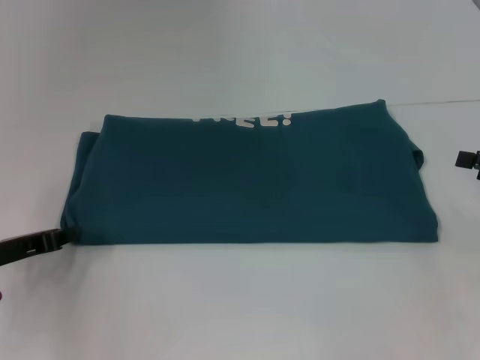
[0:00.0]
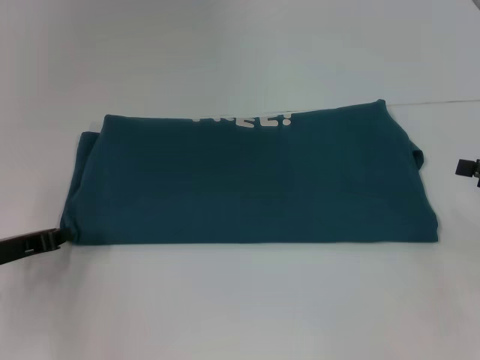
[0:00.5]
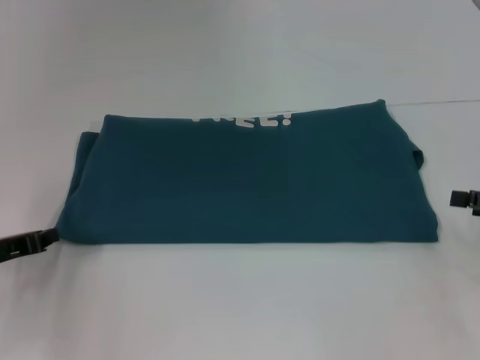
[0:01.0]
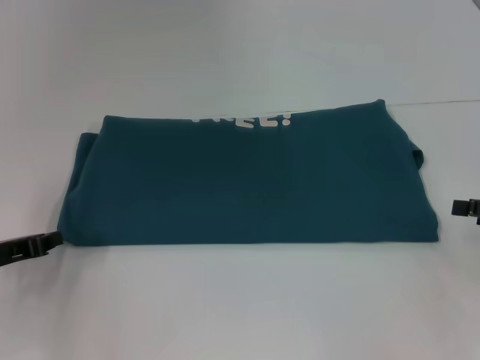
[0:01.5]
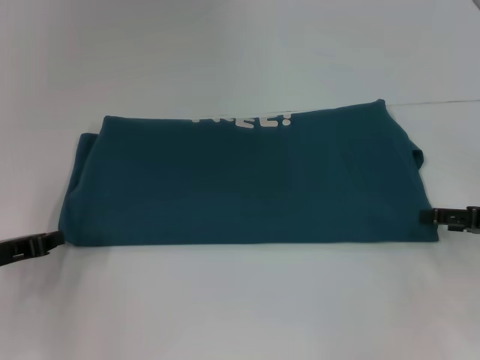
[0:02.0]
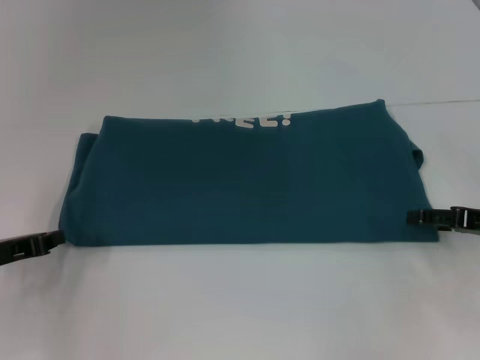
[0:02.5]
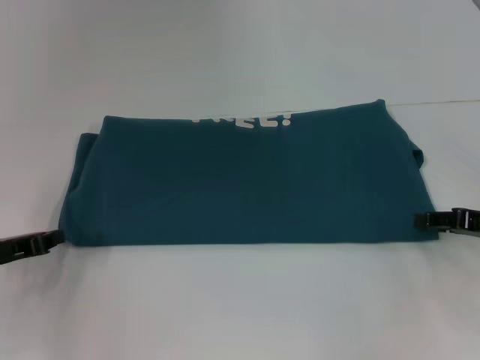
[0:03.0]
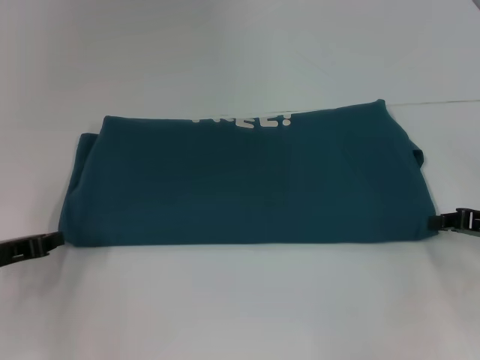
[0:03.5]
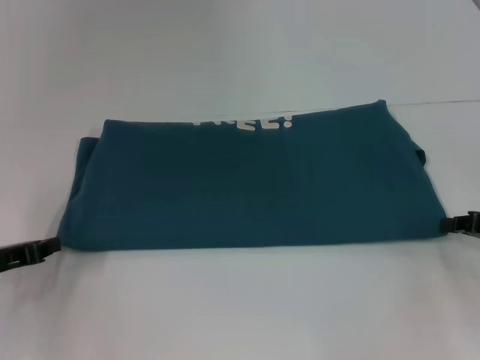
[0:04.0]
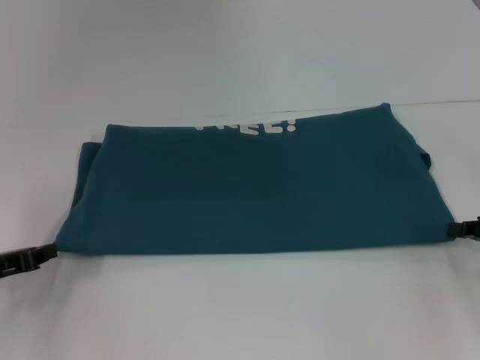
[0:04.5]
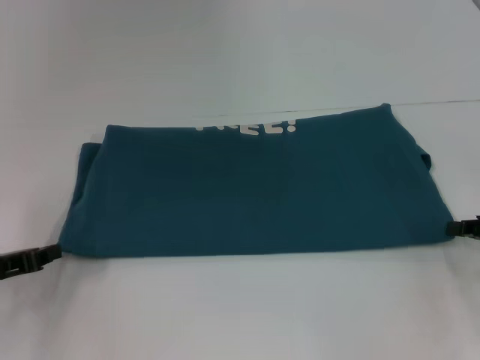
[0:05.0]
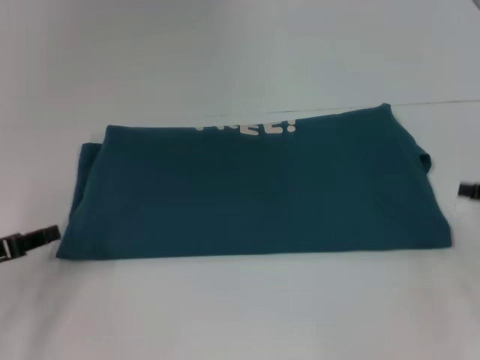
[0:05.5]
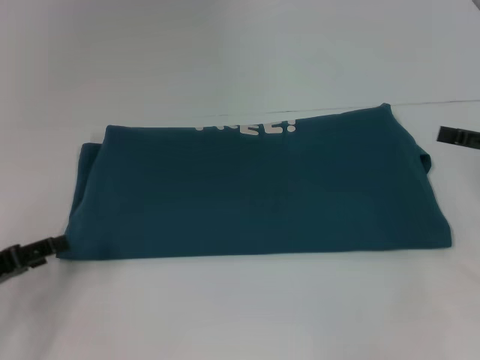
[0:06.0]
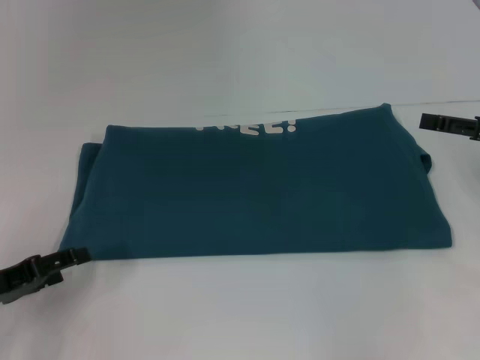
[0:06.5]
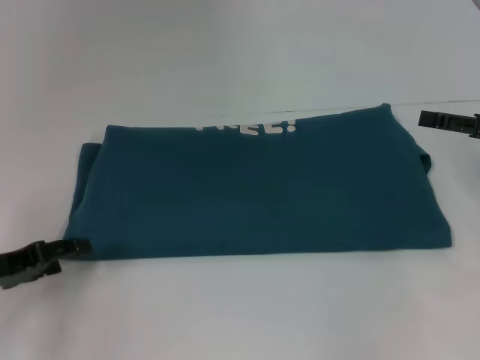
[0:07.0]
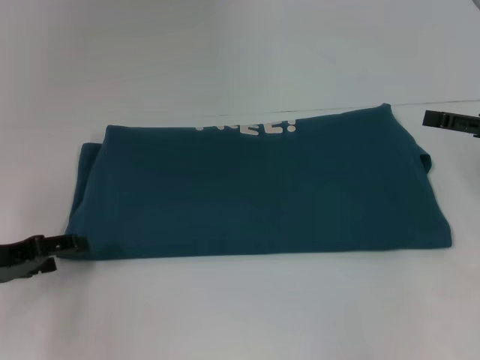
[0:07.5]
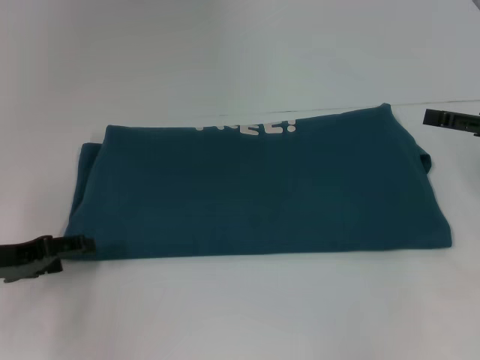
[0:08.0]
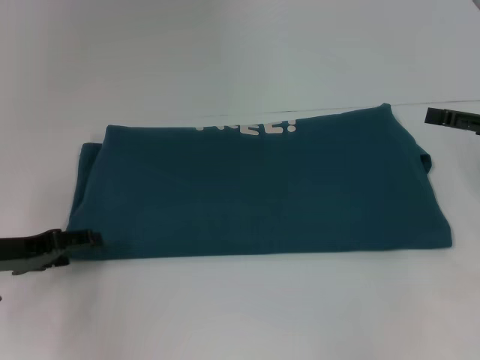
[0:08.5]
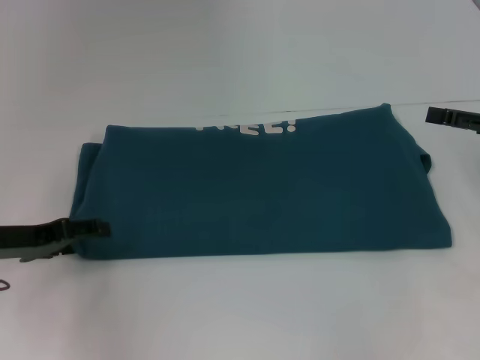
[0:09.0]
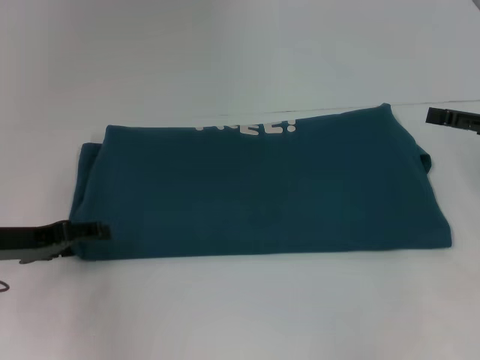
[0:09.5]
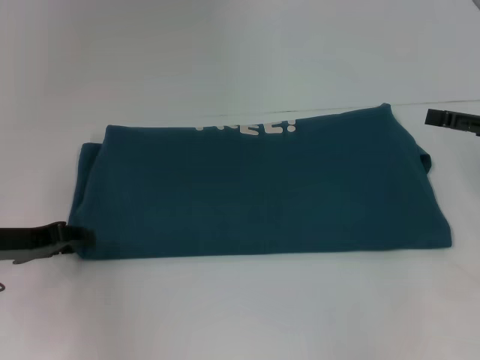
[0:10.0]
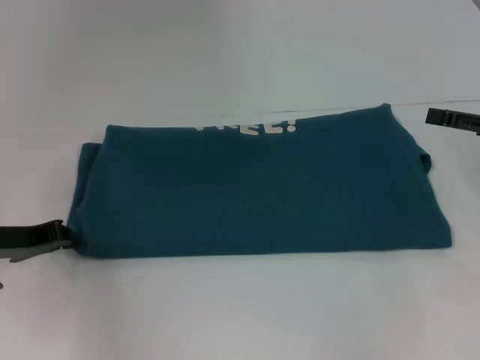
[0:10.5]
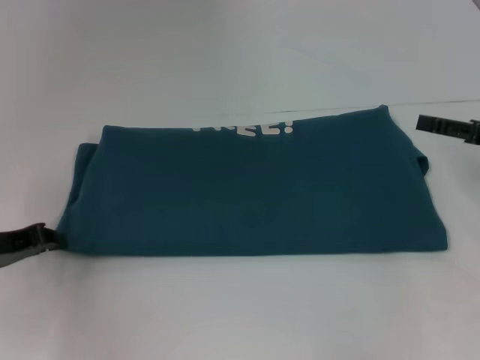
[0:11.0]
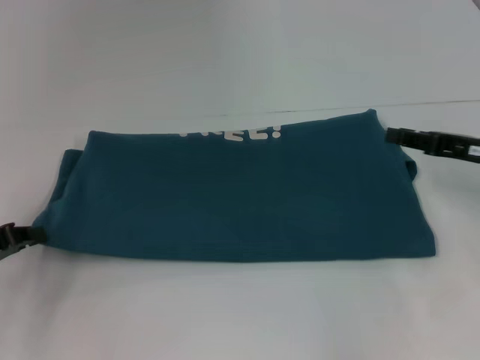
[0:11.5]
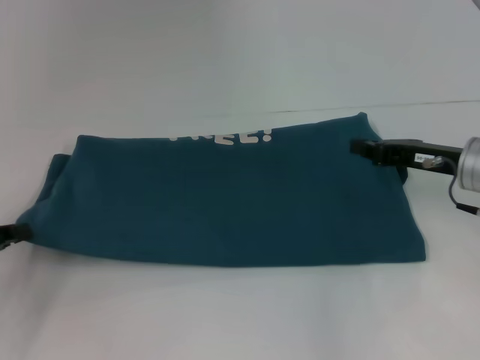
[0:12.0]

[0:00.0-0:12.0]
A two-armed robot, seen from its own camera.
0:00.0 to 0:02.0: The grippers move only a little.
0:02.0 to 0:04.0: The right gripper closes up.
0:04.0 to 0:06.0: The right gripper travels upward by roughly 5 cm, and opens, while the left gripper opens its fingers.
0:06.0 to 0:08.0: The left gripper ends up approximately 5 cm from where it was.
0:08.0 to 0:10.0: The left gripper closes.
0:10.0 to 0:12.0: The left gripper heads to the left and backward, covering about 10 cm, and closes its fingers, while the right gripper goes approximately 10 cm to the left, and closes up.

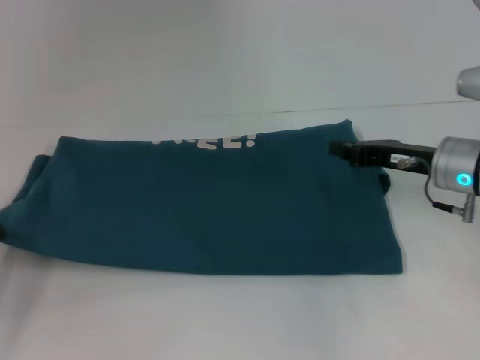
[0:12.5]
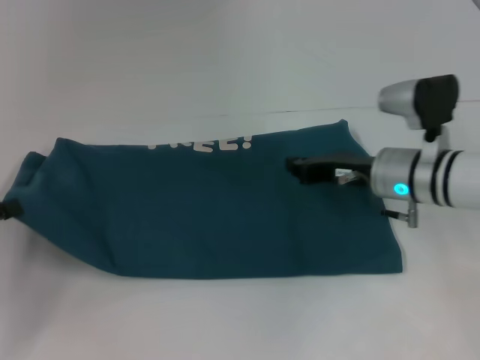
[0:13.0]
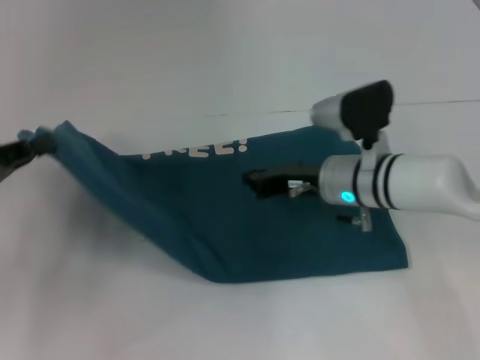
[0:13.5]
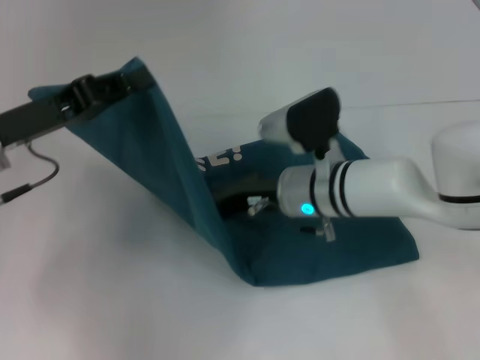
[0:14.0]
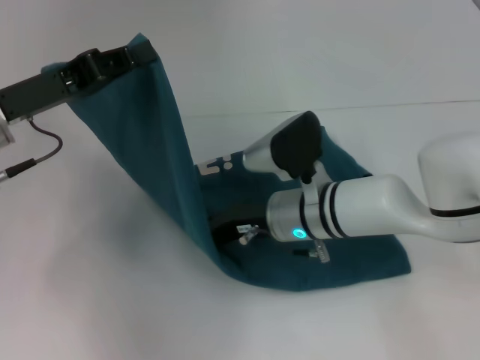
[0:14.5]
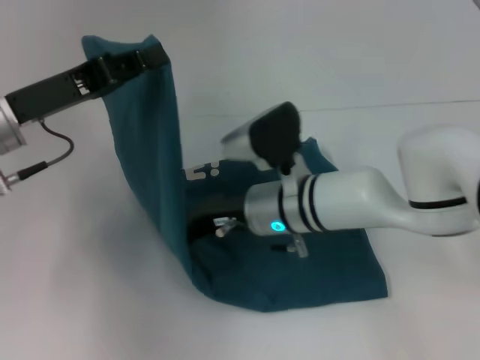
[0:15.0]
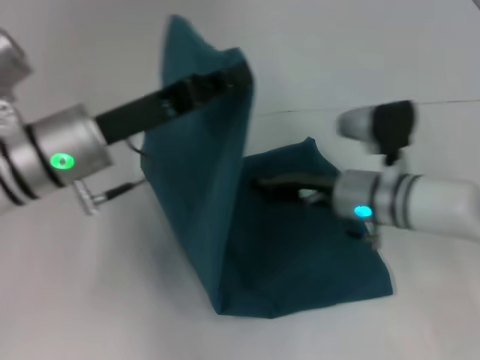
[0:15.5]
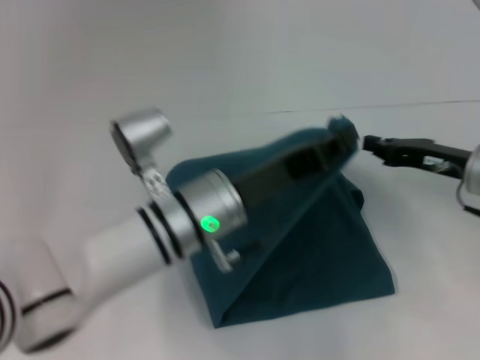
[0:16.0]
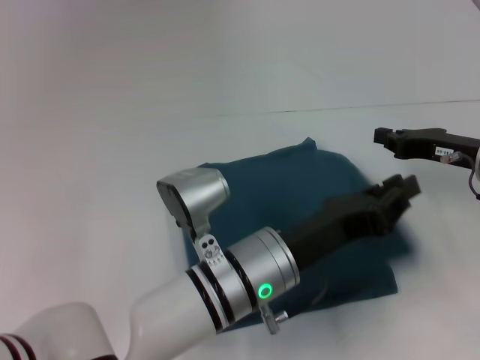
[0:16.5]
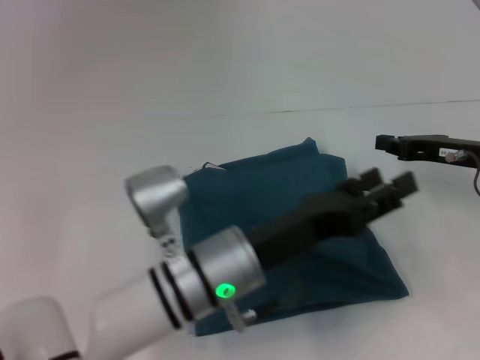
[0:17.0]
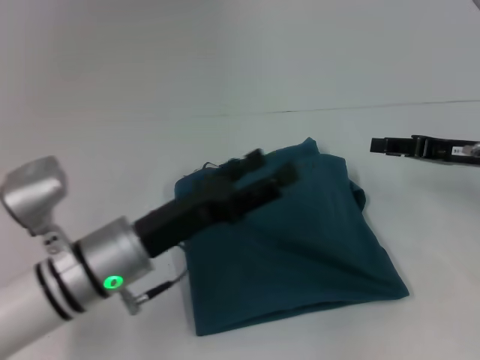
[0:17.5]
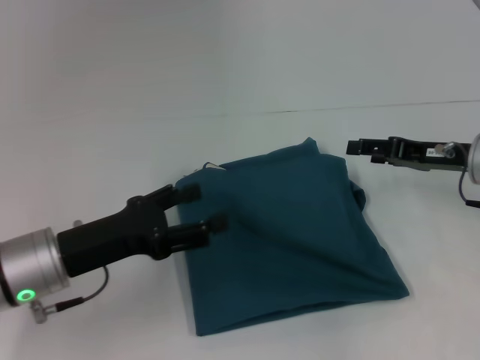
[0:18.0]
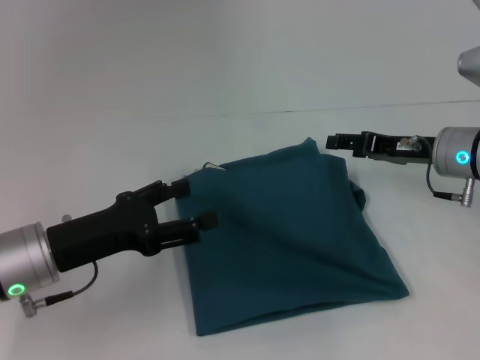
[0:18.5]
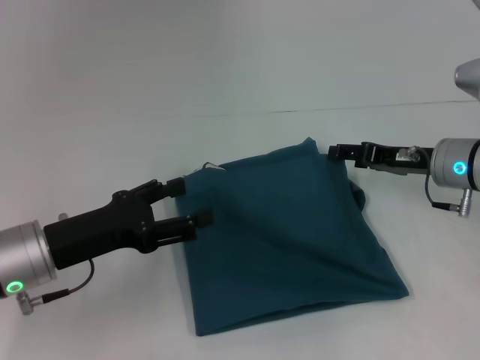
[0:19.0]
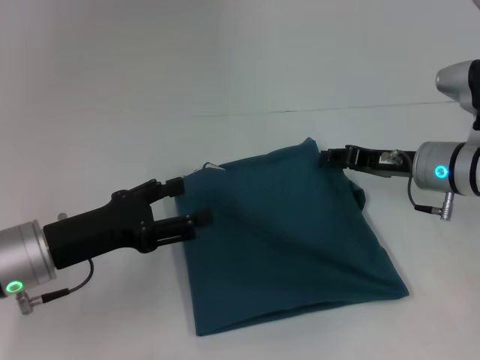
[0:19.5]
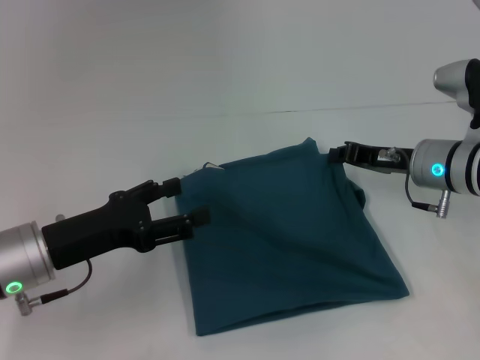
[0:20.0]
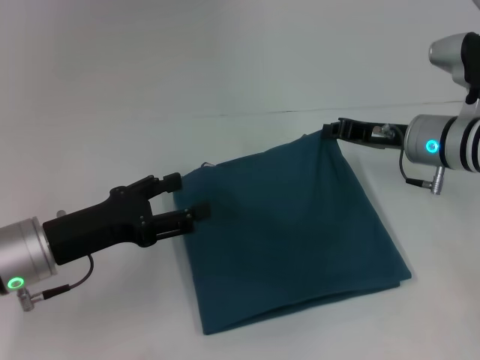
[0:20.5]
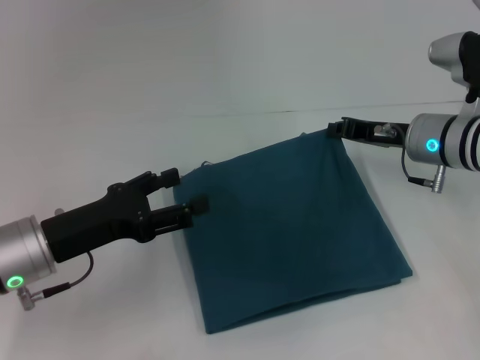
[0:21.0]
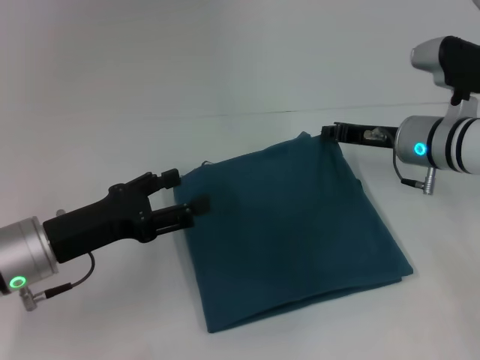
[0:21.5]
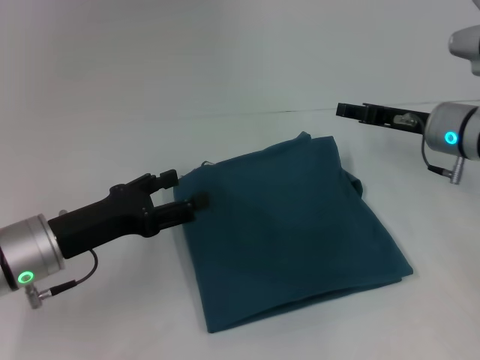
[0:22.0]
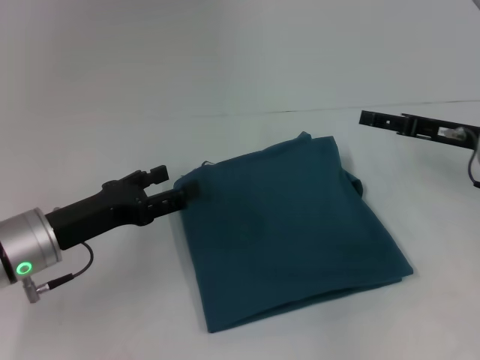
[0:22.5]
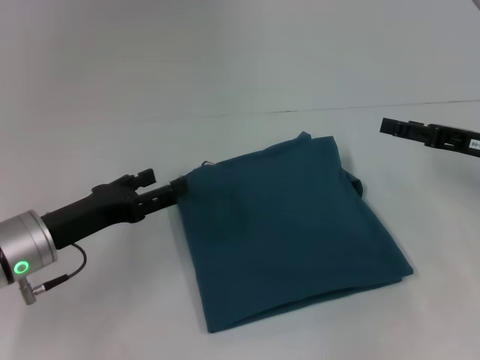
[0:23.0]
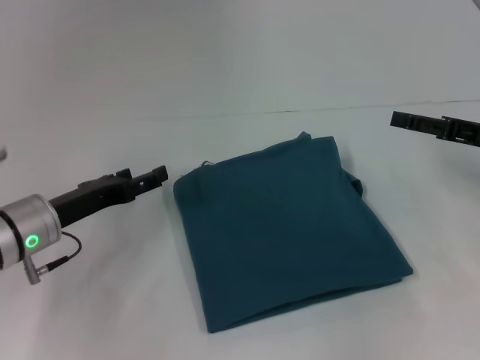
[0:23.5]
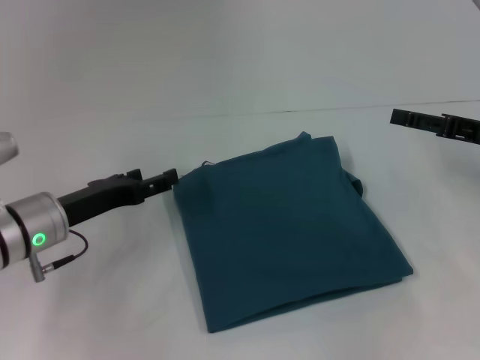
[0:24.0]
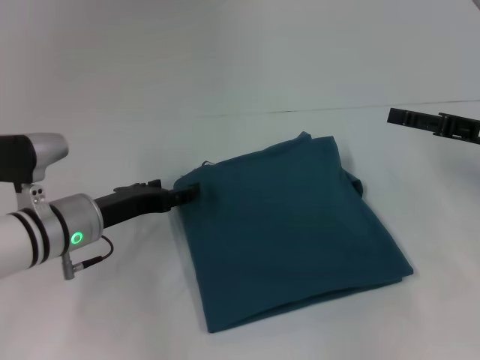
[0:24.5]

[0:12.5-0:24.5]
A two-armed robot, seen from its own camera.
Step, 0:12.5 to 0:15.0: Press the middle of the clothes with your right hand.
Step, 0:15.5 to 0:17.0: Fold the clothes to the left.
0:12.5 to 0:14.5: The left gripper moves to the right, upward and forward, approximately 20 cm. Meanwhile the right gripper heads to the left, covering roughly 15 cm.
0:14.5 to 0:16.5: The left gripper goes approximately 25 cm to the right, downward and backward, while the right gripper goes roughly 20 cm to the right.
0:16.5 to 0:18.5: The left gripper shifts about 20 cm to the left, and opens up. Meanwhile the right gripper opens.
0:18.5 to 0:20.5: The right gripper closes its fingers.
0:20.5 to 0:22.5: The right gripper is displaced to the right by some 5 cm, and opens.
0:22.5 to 0:24.5: The left gripper moves about 5 cm.

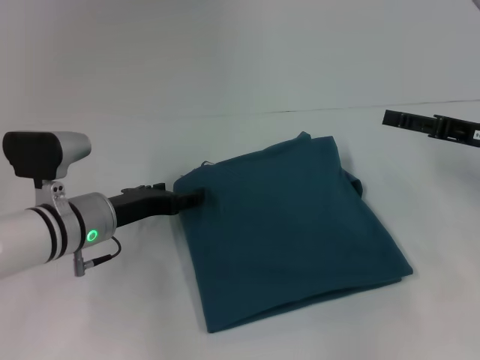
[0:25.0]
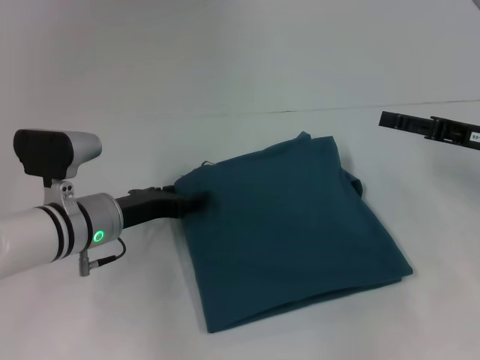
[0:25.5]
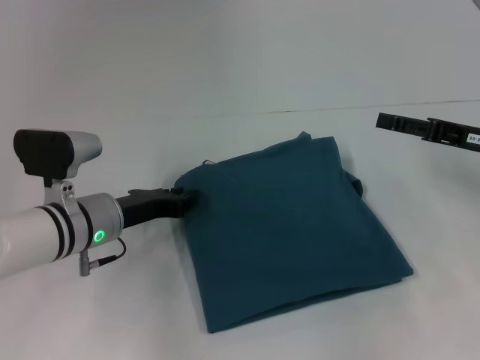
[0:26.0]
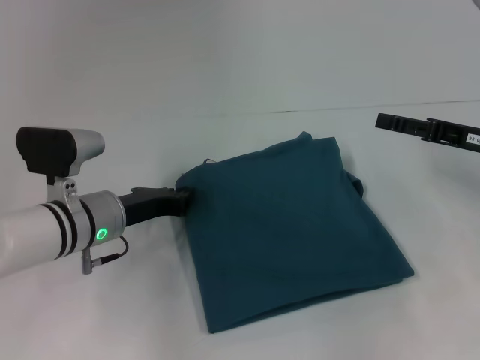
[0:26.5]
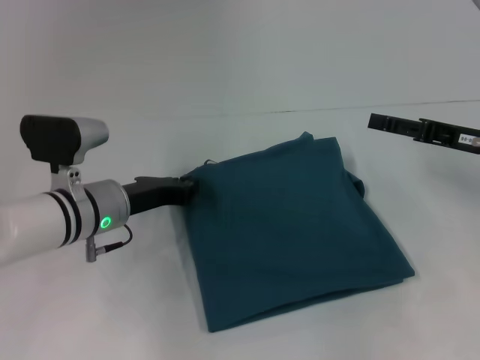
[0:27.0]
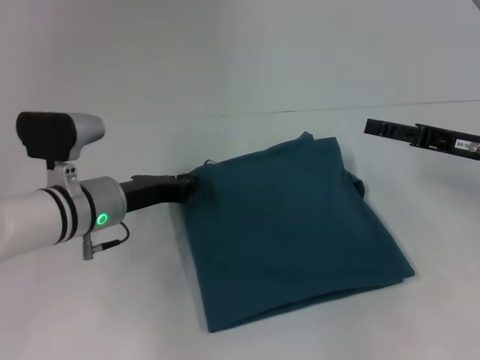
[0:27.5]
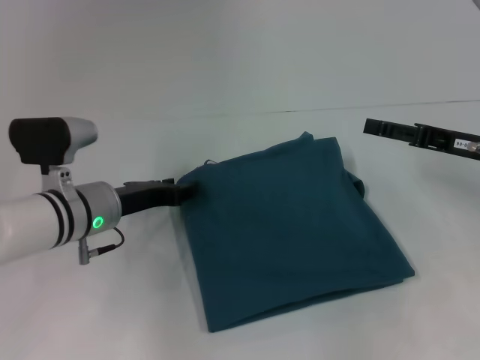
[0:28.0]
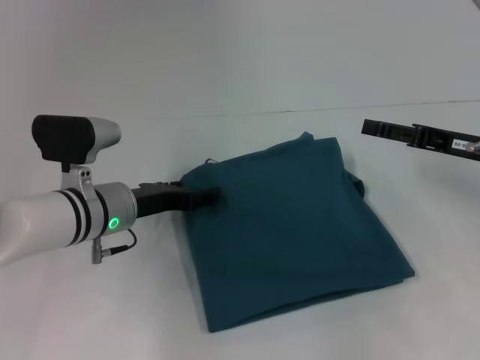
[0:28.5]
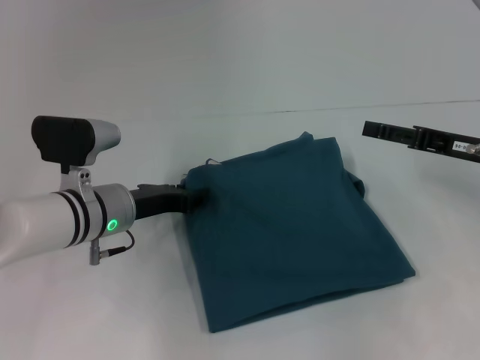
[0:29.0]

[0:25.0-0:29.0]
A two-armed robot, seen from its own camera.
0:25.0 to 0:27.0: The left gripper closes.
0:27.0 to 0:29.0: The left gripper opens.
